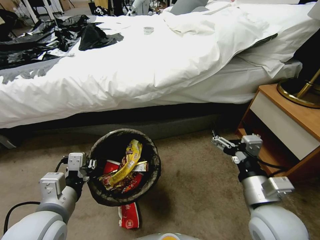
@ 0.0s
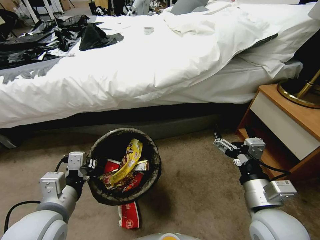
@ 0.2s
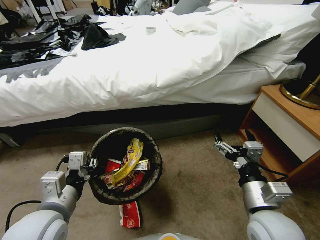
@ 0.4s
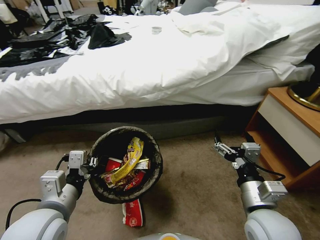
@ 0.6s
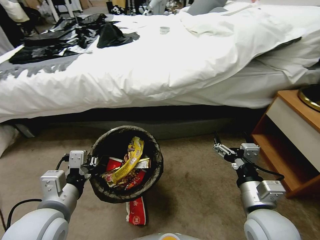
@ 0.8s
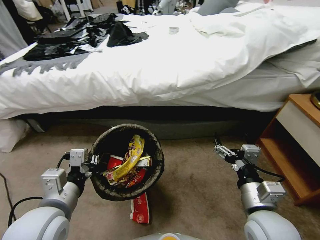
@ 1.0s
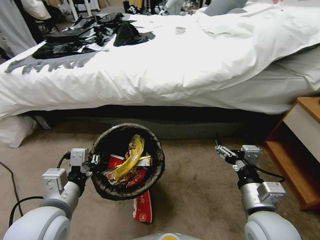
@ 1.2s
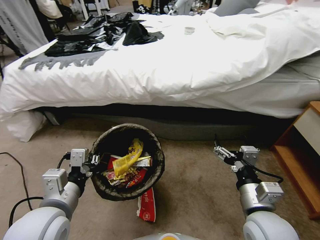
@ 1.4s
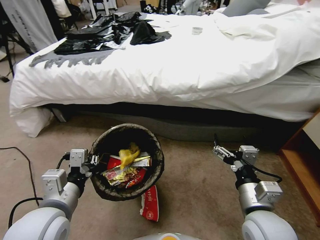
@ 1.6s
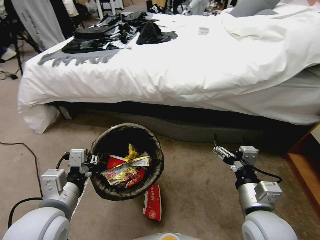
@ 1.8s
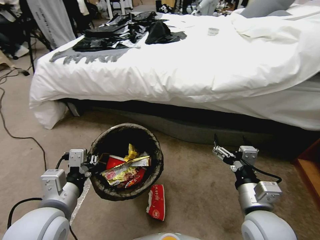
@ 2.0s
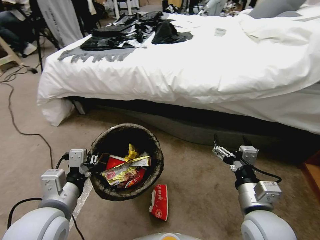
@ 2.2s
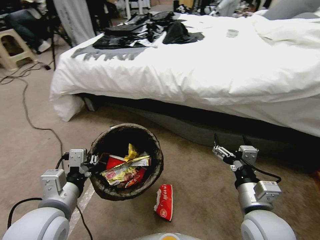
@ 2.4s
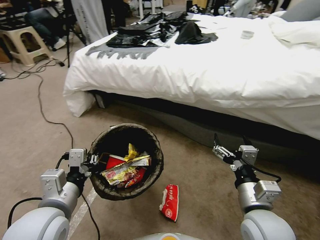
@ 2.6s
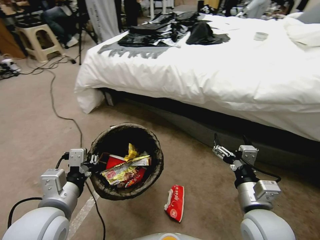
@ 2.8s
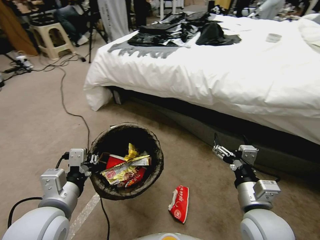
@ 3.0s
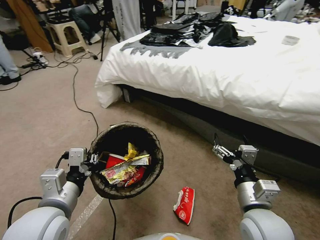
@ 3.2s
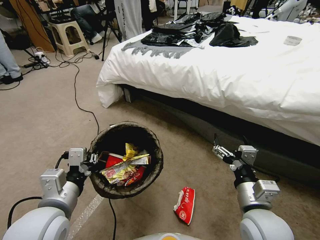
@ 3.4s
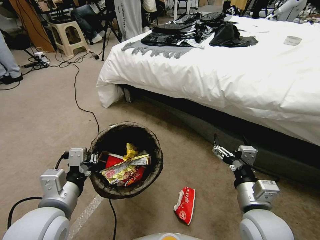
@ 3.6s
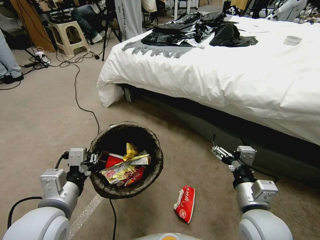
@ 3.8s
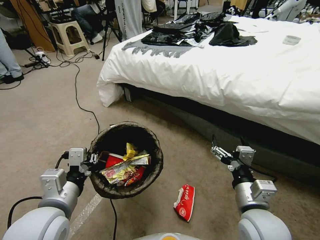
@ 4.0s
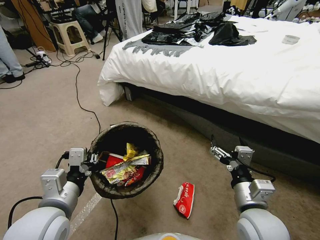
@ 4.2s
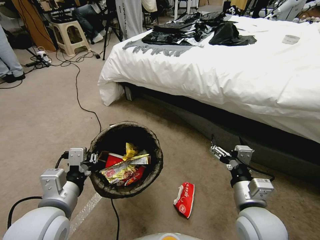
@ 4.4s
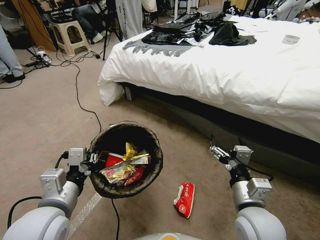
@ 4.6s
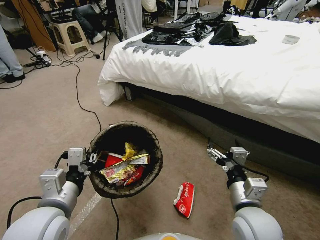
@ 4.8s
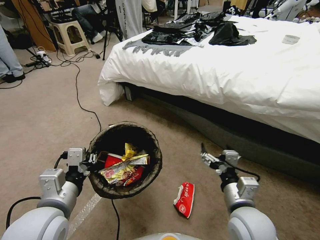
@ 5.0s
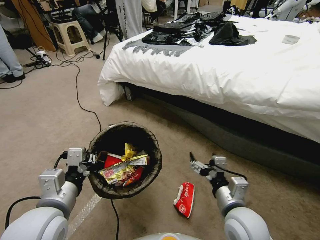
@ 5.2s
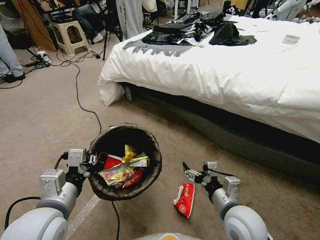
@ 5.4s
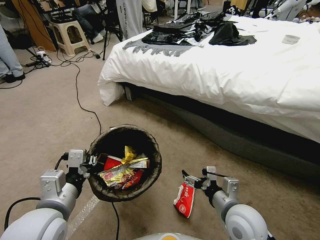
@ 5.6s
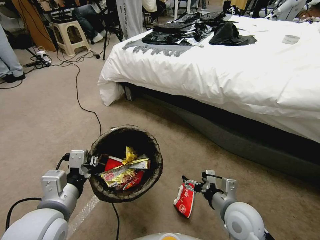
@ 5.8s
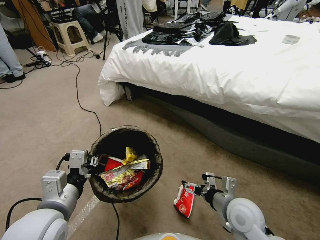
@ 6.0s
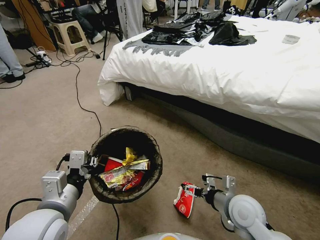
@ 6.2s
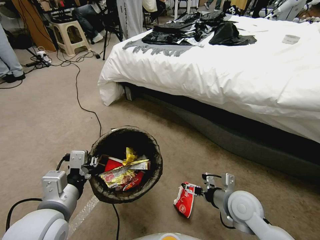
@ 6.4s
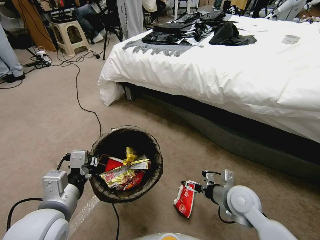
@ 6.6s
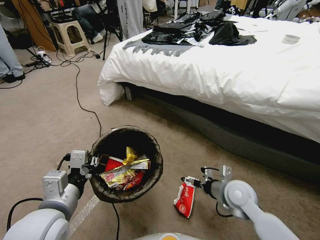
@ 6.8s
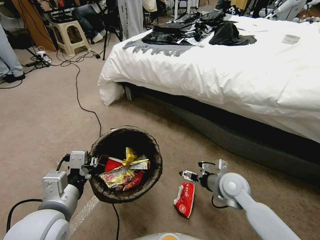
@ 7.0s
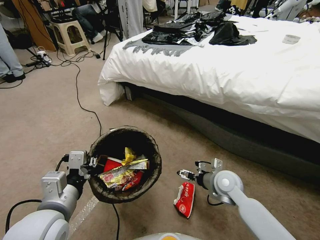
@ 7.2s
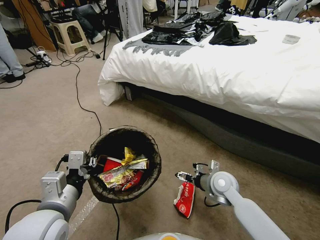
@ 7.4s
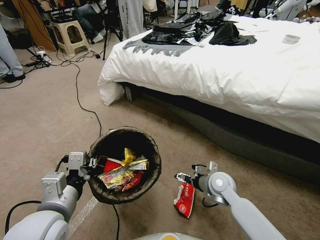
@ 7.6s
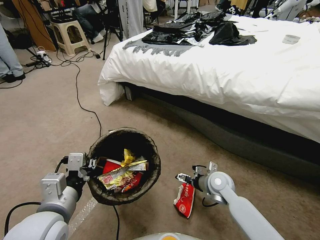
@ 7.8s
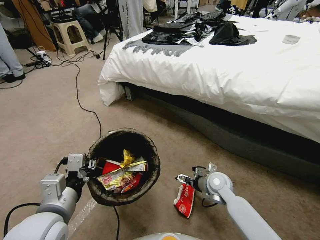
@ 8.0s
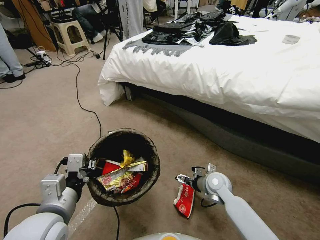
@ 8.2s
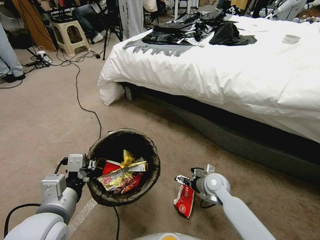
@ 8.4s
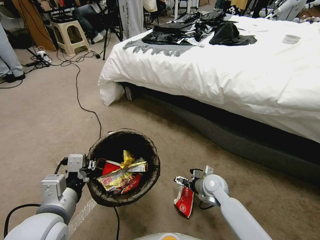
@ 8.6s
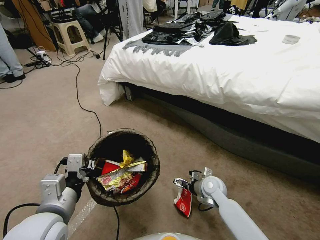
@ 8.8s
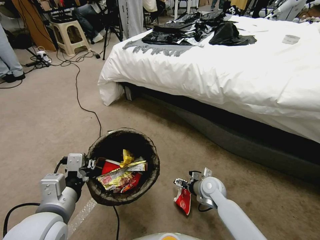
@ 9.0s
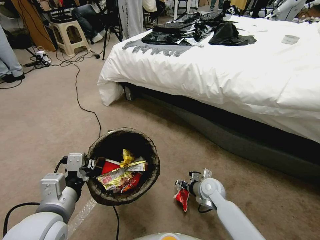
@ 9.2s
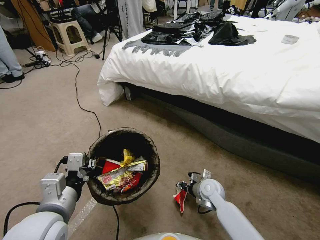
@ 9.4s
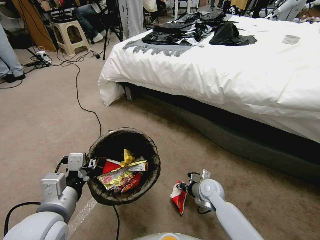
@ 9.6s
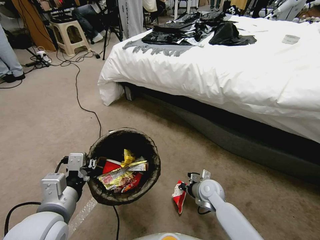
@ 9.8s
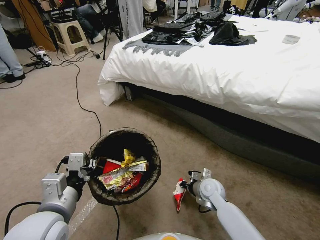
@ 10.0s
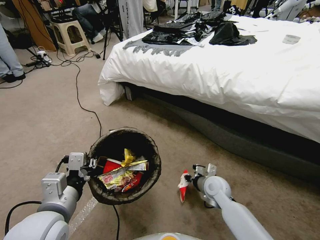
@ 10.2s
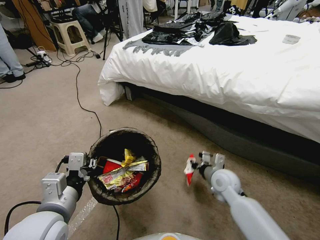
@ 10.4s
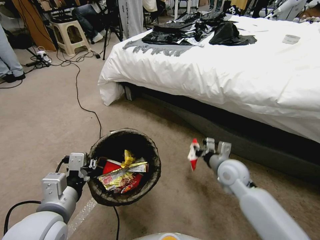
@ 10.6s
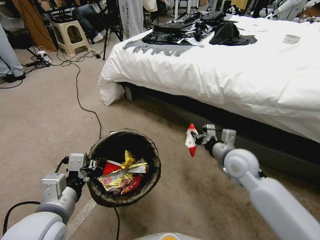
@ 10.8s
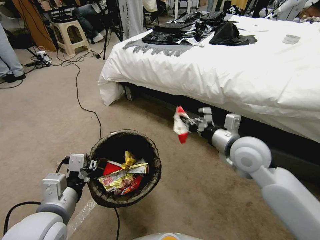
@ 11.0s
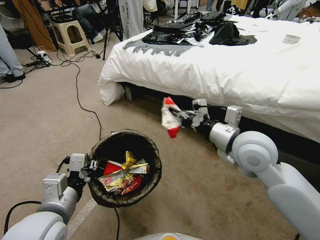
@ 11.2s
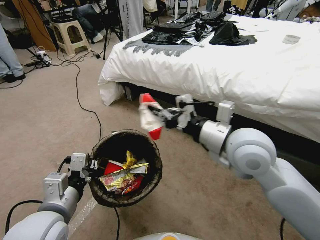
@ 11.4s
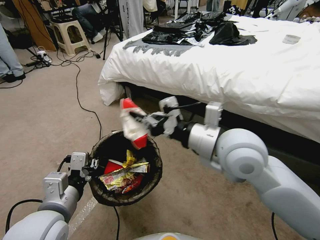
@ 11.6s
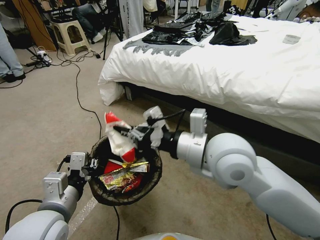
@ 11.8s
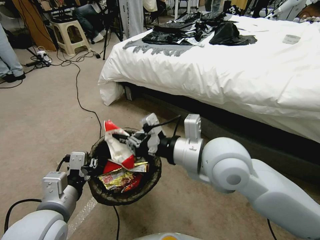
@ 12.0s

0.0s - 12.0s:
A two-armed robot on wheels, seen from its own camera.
Task of the whole recording: Pick up the trash bin, then pick up the garbage from the floor and place it into the trash bin.
4.4s - 6.0s: The right gripper goes roughly 5 cm downward.
6.0s - 7.6s: The right gripper is displaced forward and downward by some 15 cm.
7.6s - 9.0s: The right gripper travels downward by about 5 cm.
9.0s - 10.4s: The right gripper moves upward, roughly 10 cm, and closes its fingers.
10.4s - 12.0s: The right gripper travels upward by approximately 25 cm.

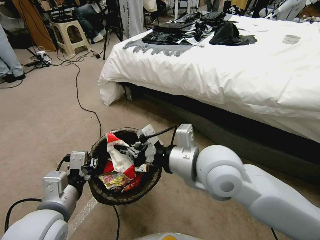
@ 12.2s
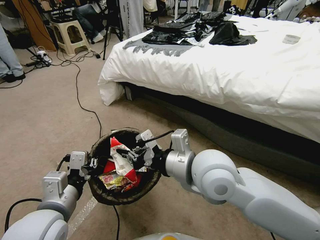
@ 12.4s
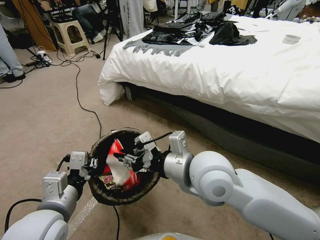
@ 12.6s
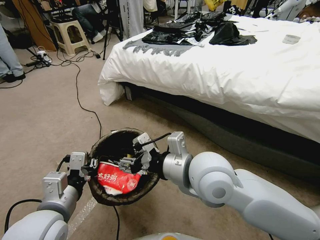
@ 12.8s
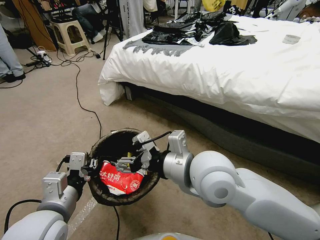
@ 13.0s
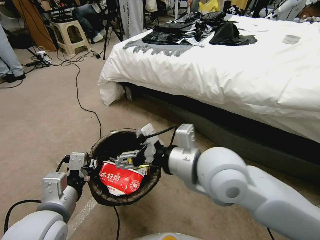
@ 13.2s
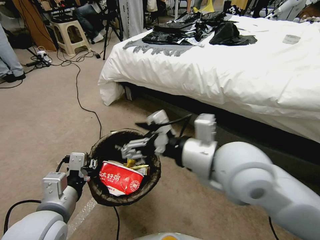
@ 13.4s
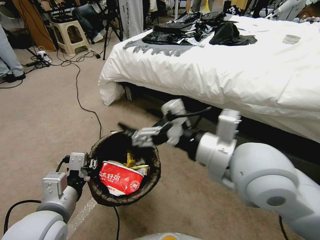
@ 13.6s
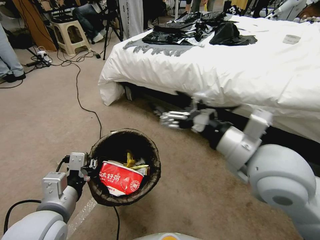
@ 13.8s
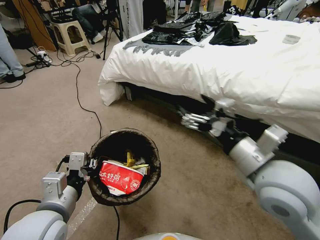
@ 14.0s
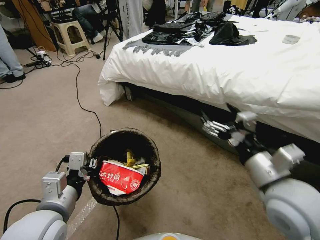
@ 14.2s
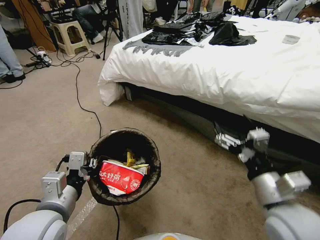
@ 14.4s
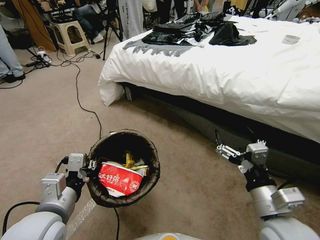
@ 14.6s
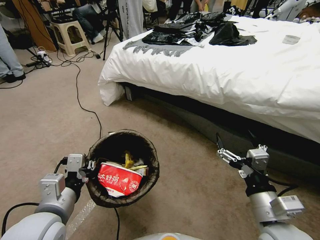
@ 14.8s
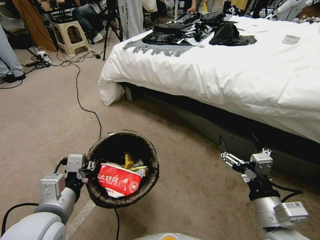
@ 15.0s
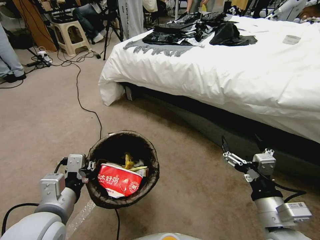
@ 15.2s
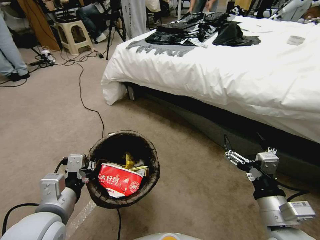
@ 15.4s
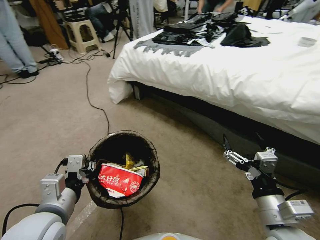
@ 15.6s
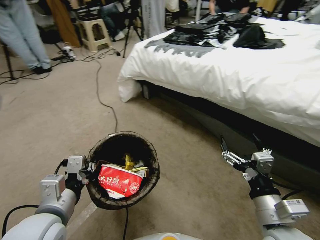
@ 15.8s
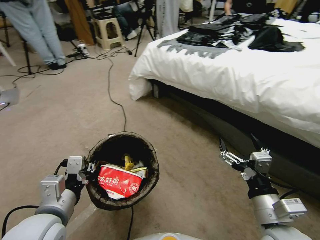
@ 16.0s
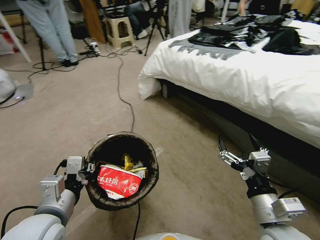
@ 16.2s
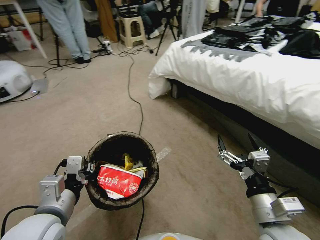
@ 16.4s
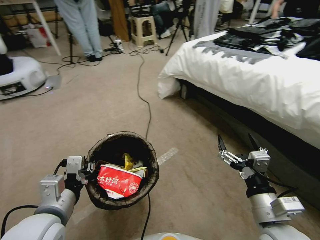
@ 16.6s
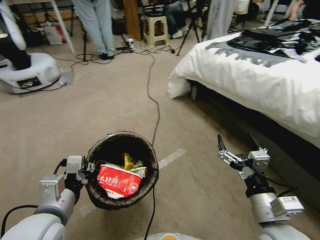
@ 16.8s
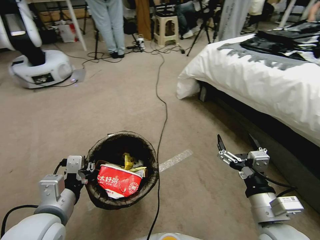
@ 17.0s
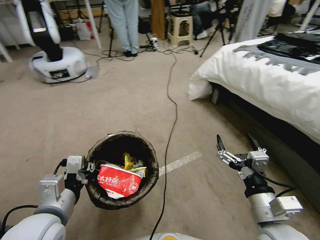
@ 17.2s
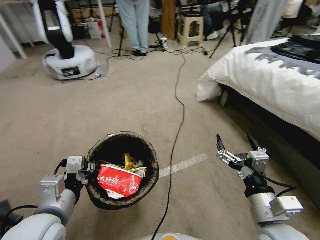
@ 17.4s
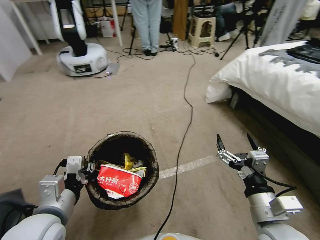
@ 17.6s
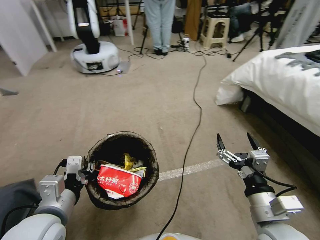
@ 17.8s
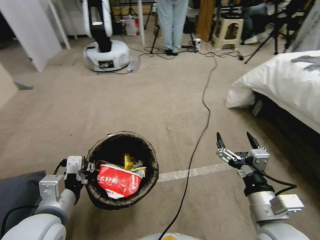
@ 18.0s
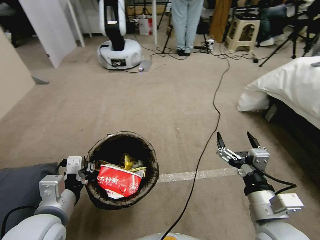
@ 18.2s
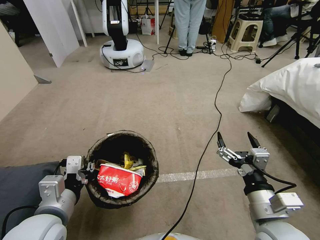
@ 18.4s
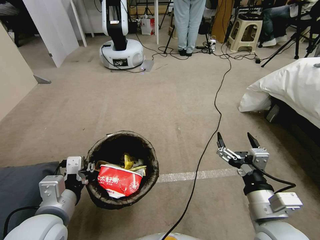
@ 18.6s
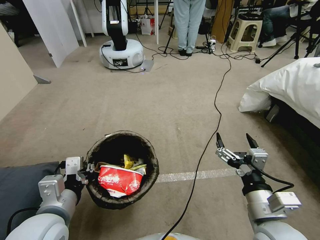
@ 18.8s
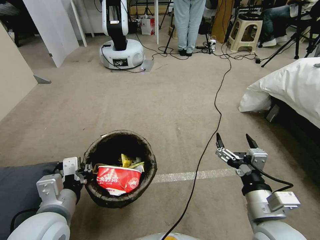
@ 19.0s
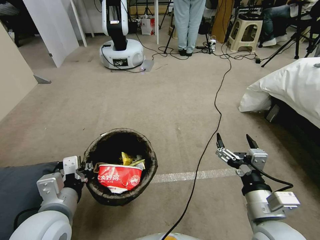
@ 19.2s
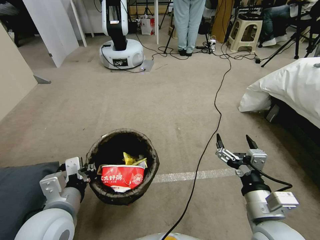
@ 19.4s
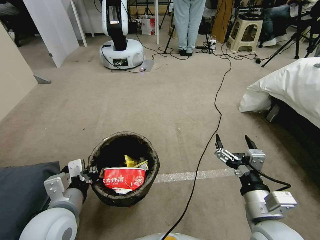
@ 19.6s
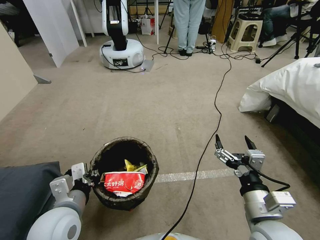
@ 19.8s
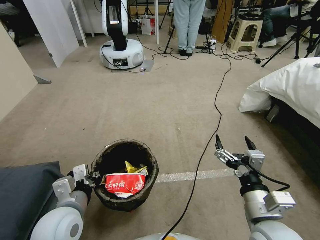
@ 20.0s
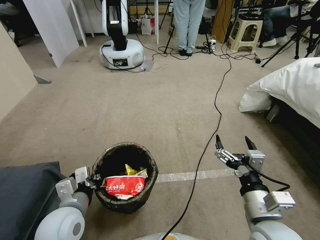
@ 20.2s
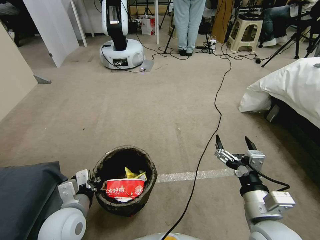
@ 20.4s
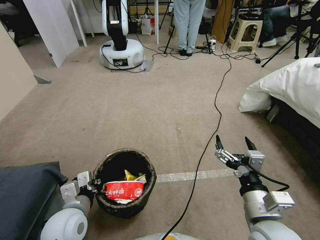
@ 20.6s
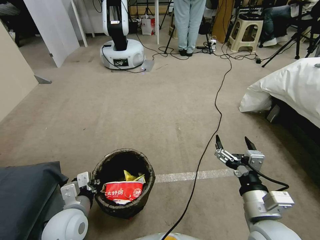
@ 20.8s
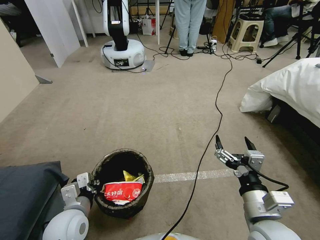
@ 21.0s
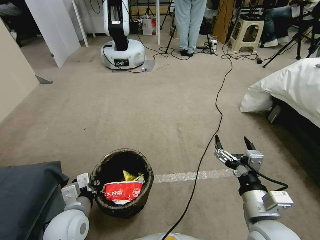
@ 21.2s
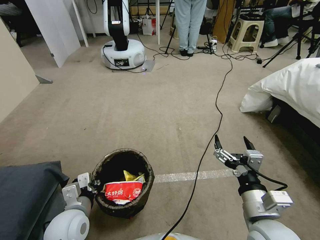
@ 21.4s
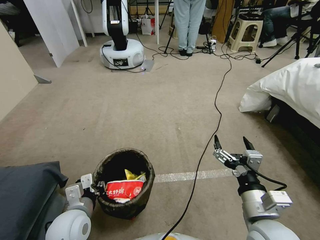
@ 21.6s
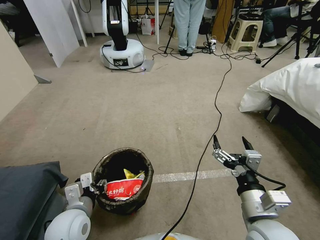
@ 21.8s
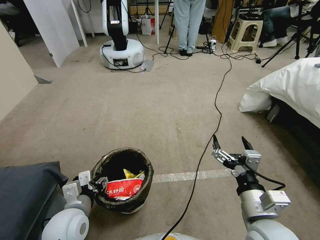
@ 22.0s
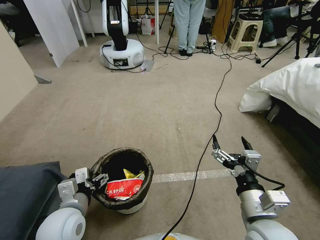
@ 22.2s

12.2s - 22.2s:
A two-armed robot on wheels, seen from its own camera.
Task of the whole recording: Pick up the trash bin, then pick up the garbage from the floor and place it into the trash bin.
12.2s - 13.6s: The right gripper is displaced upward by about 5 cm, and opens.
13.6s - 15.0s: The right gripper travels downward, to the right and backward by about 25 cm.
19.4s - 20.8s: The left gripper heads downward, covering roughly 10 cm.
20.8s - 22.2s: The left gripper opens up.
